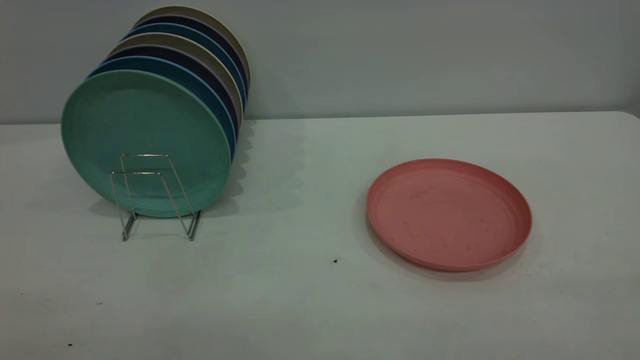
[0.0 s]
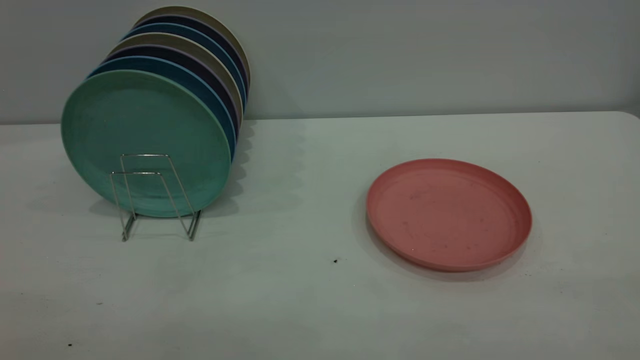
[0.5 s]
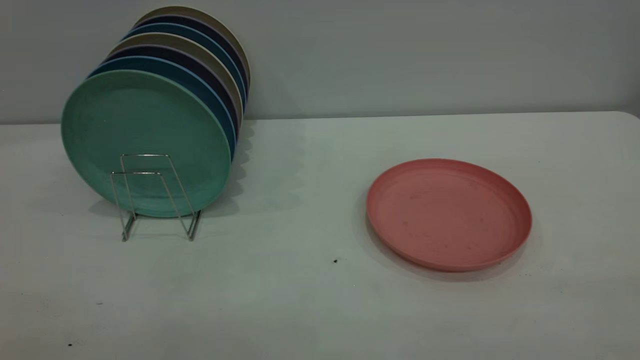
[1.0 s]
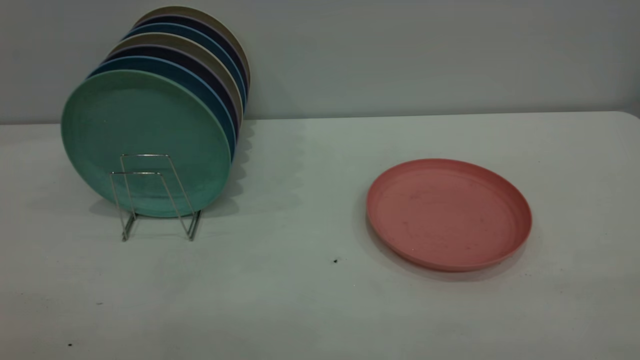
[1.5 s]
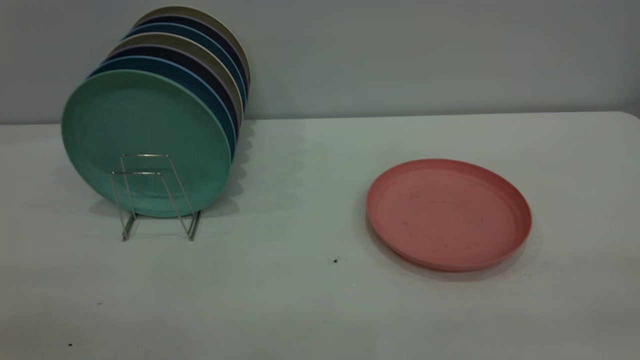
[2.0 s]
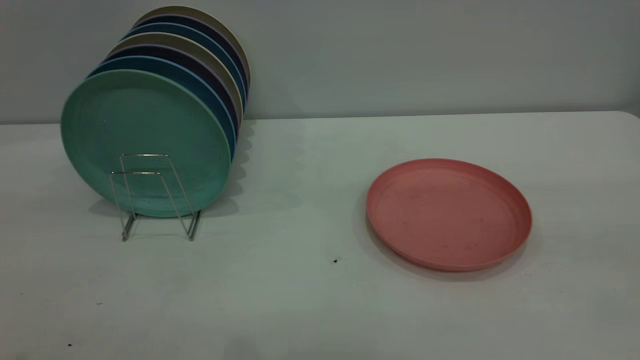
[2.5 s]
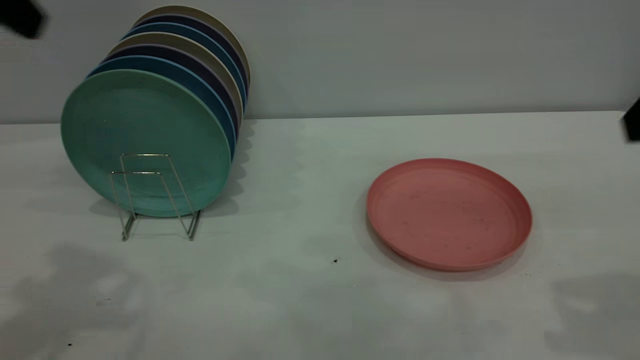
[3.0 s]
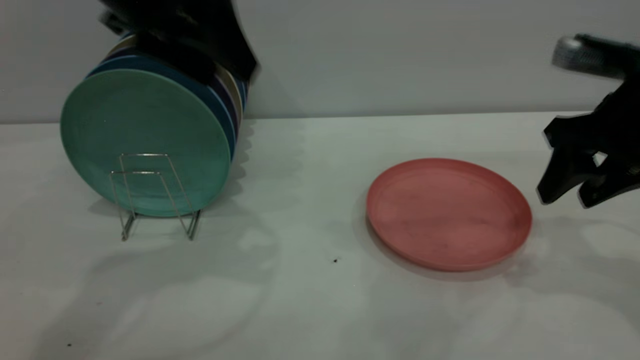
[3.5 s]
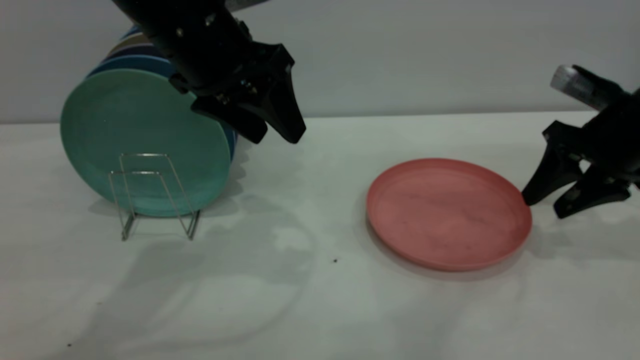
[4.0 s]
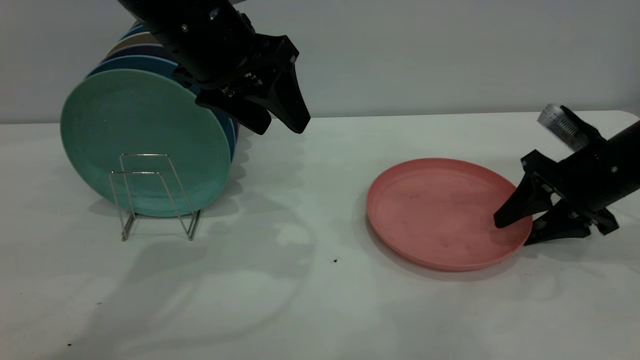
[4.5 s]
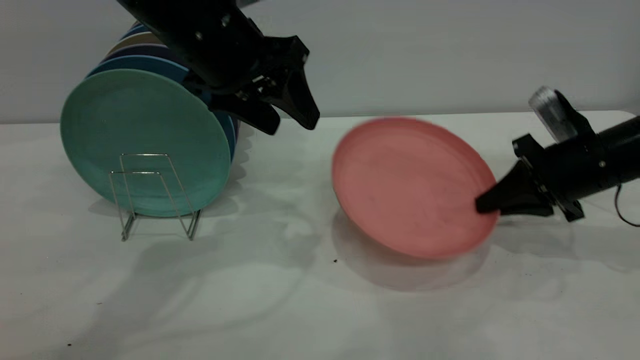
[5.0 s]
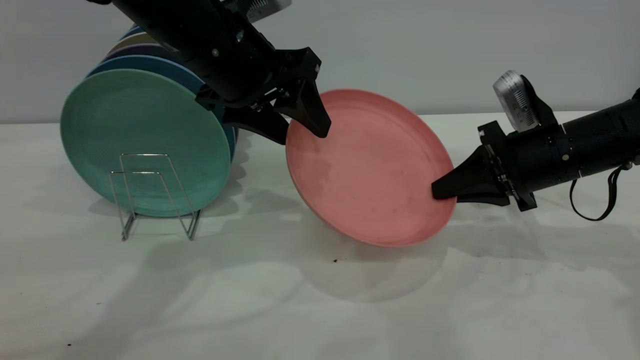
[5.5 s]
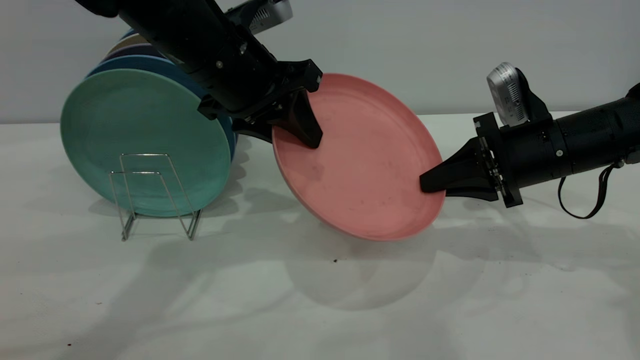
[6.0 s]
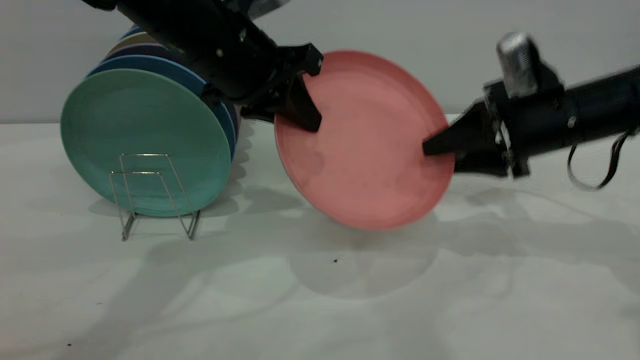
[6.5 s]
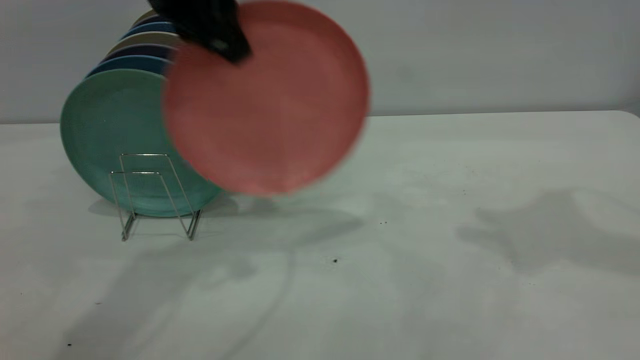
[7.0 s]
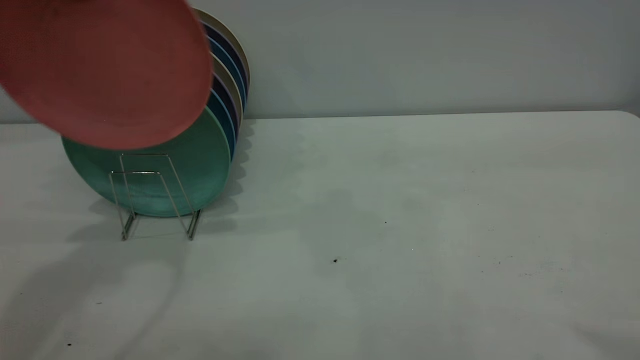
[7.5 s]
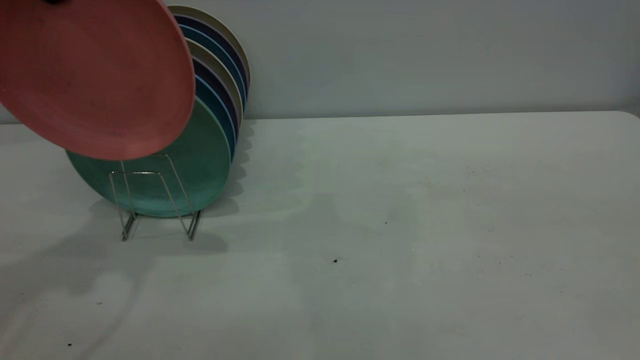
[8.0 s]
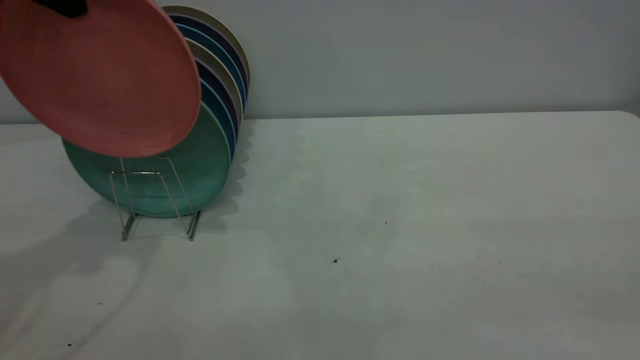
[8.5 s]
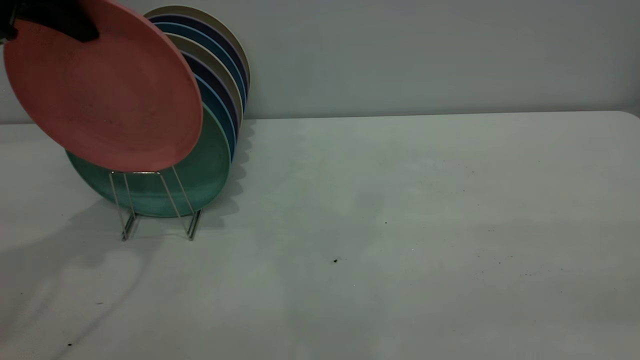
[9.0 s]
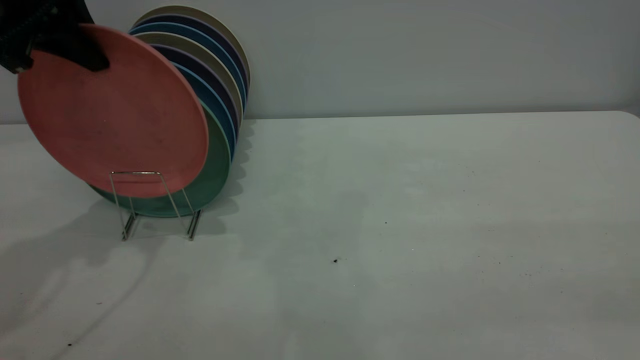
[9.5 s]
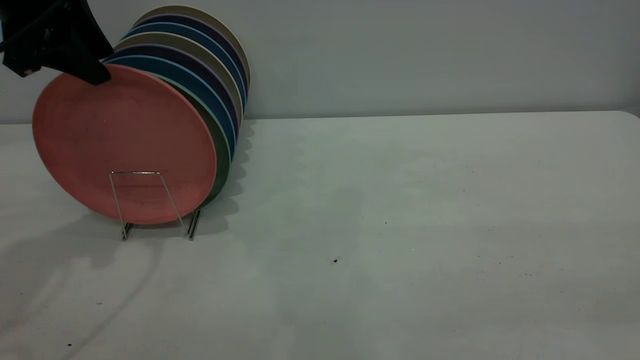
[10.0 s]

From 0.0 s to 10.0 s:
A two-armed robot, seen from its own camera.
Task of the whole recording: the right gripper grasp the pink plate, the right gripper pass the pink plate to the left gripper, and the left gripper place the pink plate on the plate rack.
Step, from 0.0 s to 5.0 s: Pick up the plate with the right gripper.
Step, from 5.5 s to 6.5 s: Pass the plate from the right gripper to the left gripper.
From 2.0 s to 4.0 s: The left gripper is displaced forward and to the right by approximately 40 cm, while the right gripper is displaced forward and downward by approximately 50 cm.
From 4.0 s to 6.0 s: The right gripper shifts roughly 10 cm to the left, and closes its fingers. Meanwhile the left gripper closes.
From 6.0 s to 8.0 s: The left gripper travels to the left and upward by approximately 25 cm, and closes up. The right gripper moves upward and backward, about 50 cm, and opens up.
From 8.0 s to 10.0 s: The left gripper moves downward, some 10 cm, and opens up.

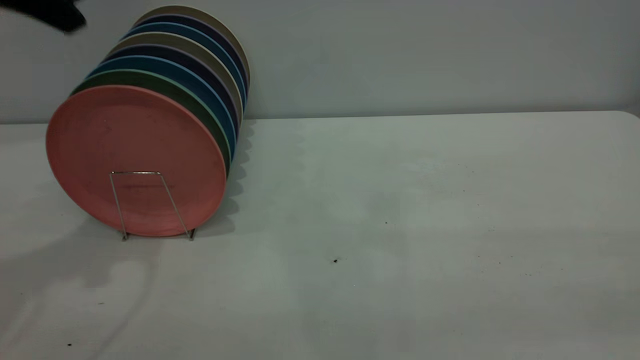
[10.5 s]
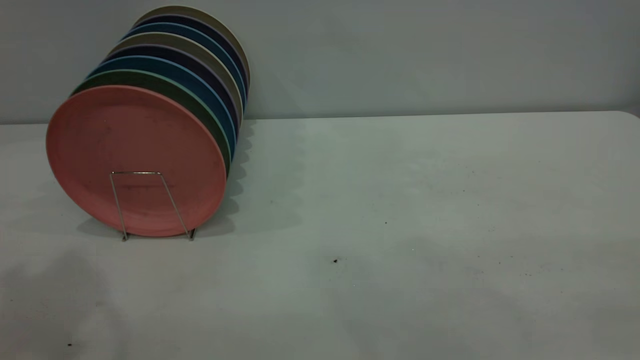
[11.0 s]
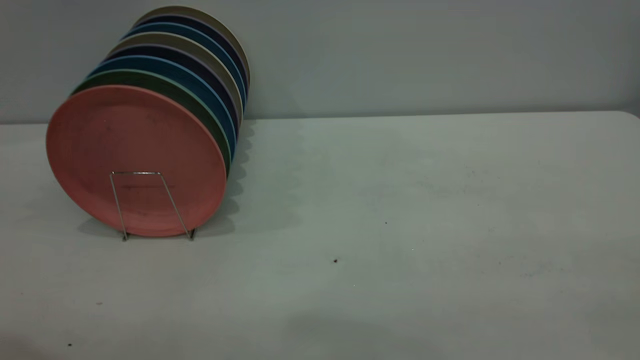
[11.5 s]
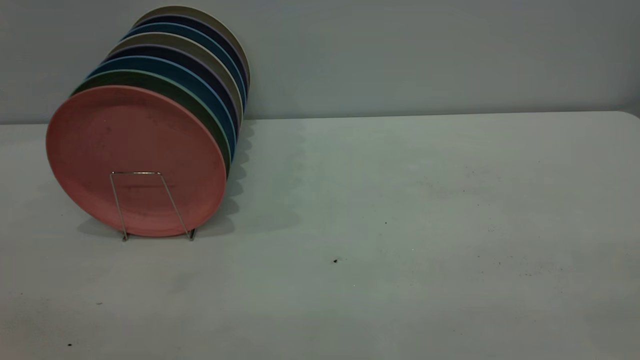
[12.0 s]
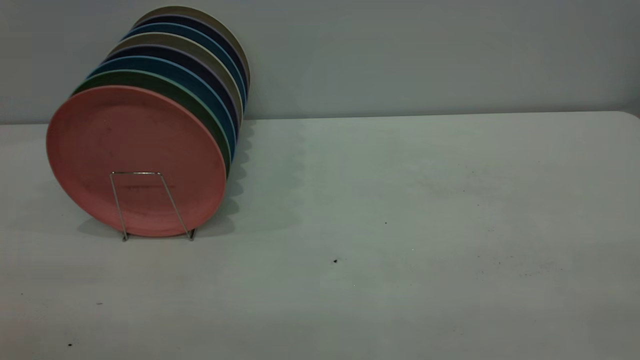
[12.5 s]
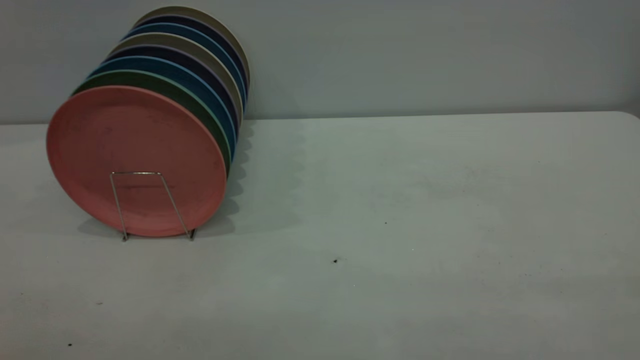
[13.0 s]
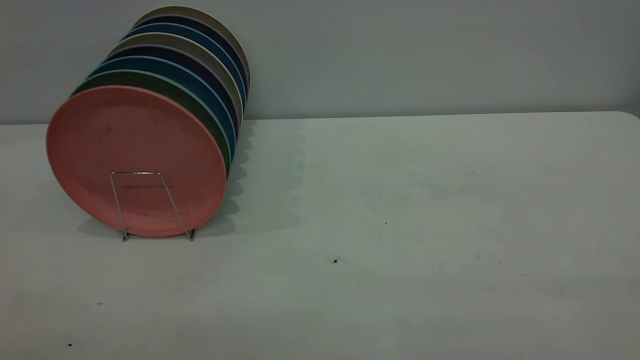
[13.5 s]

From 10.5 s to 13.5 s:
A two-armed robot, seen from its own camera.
Task of the whole recording: the right gripper grasp the pink plate, the right gripper pass the pink plate to the left gripper, and the left gripper place the pink plate on the plate rack.
From 10.5 s to 12.0 s: The left gripper shifts about 30 cm backward.
